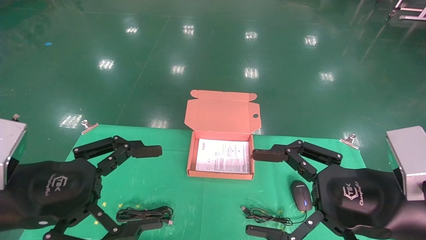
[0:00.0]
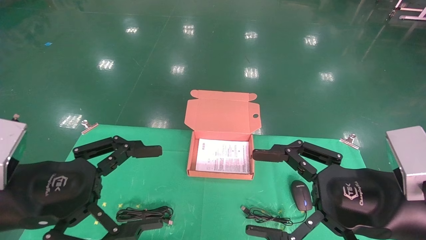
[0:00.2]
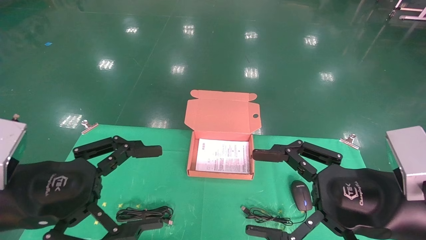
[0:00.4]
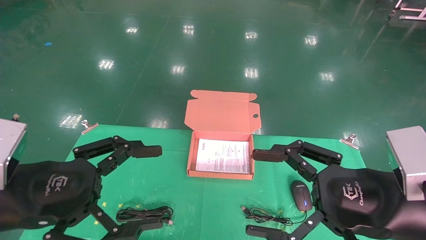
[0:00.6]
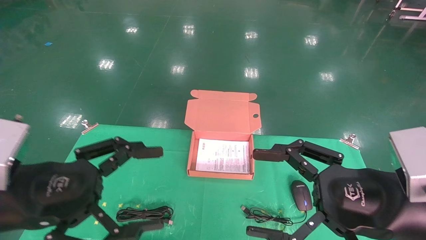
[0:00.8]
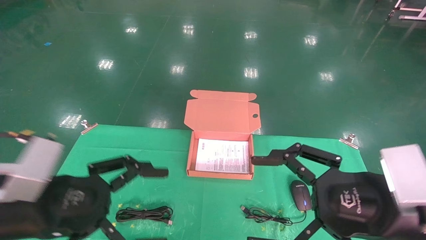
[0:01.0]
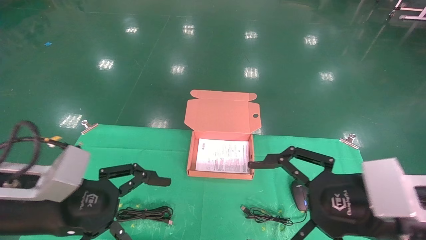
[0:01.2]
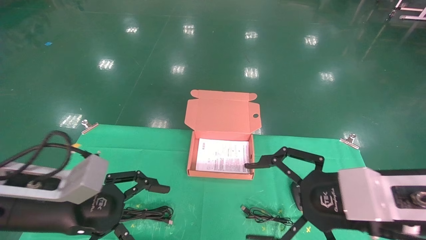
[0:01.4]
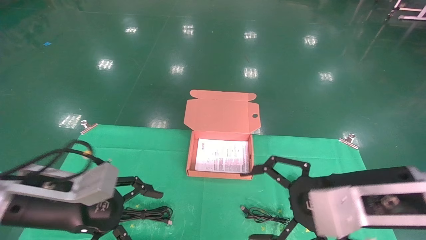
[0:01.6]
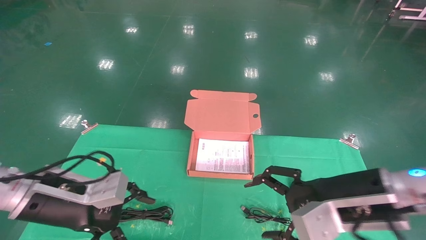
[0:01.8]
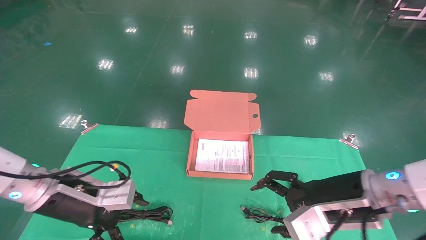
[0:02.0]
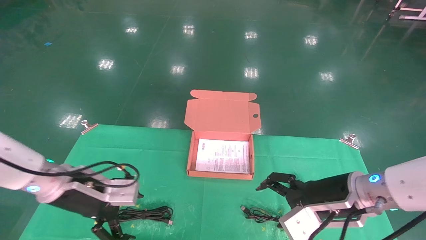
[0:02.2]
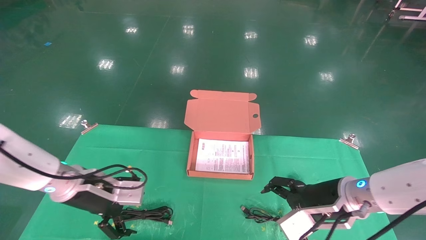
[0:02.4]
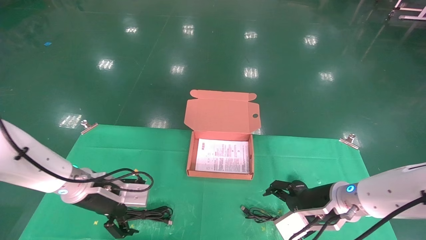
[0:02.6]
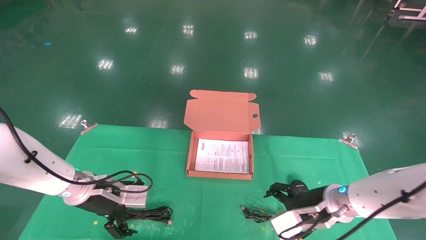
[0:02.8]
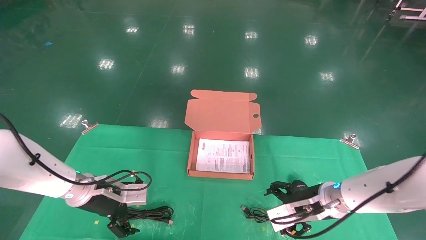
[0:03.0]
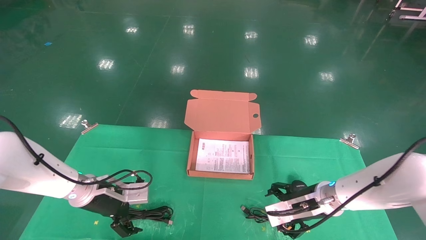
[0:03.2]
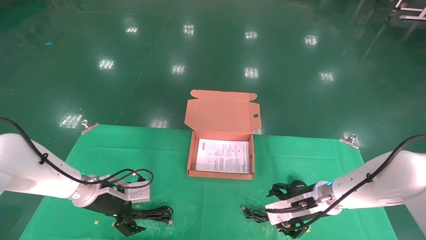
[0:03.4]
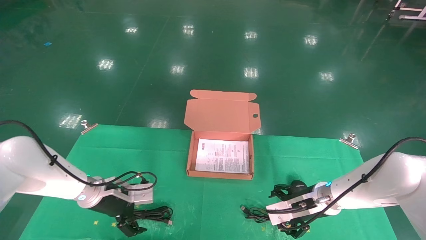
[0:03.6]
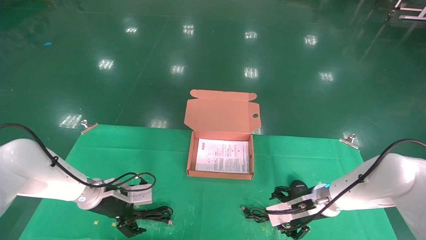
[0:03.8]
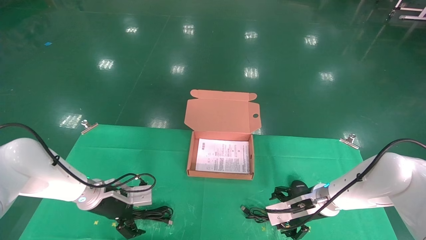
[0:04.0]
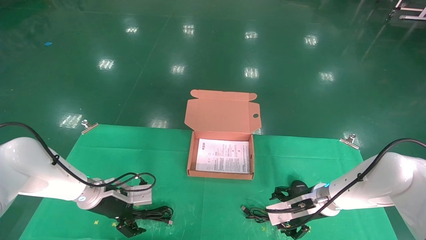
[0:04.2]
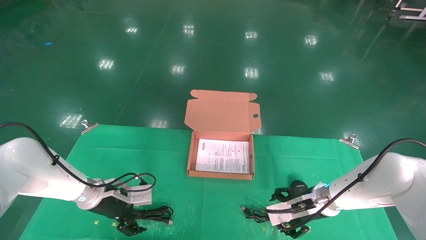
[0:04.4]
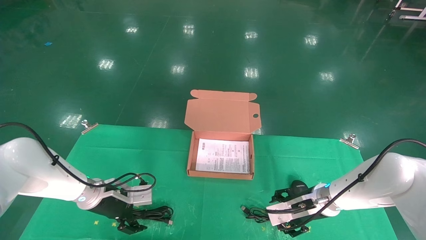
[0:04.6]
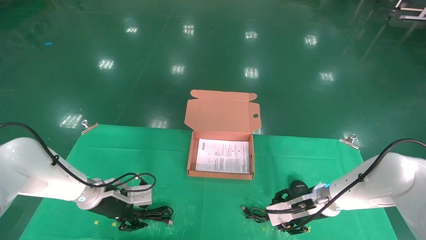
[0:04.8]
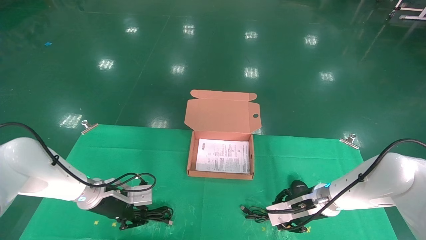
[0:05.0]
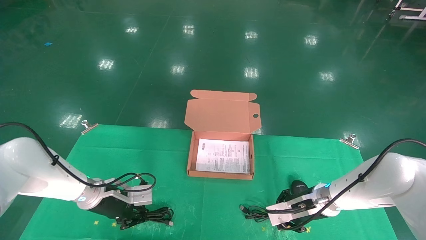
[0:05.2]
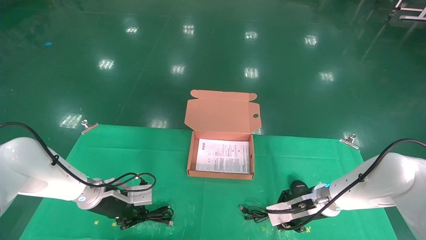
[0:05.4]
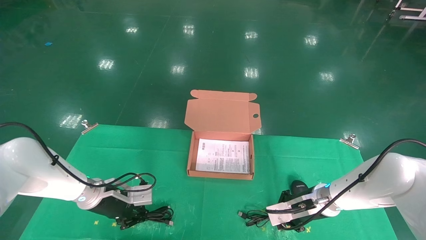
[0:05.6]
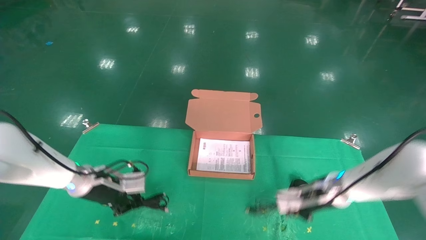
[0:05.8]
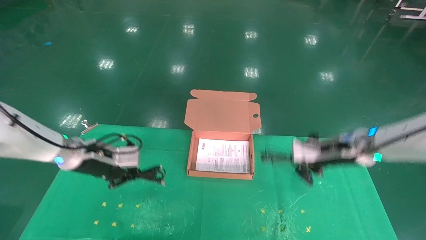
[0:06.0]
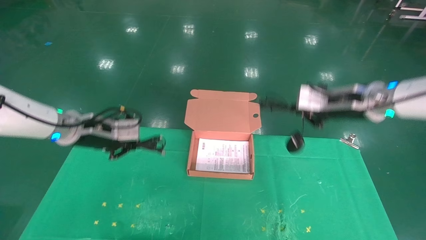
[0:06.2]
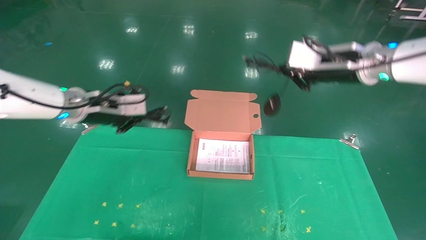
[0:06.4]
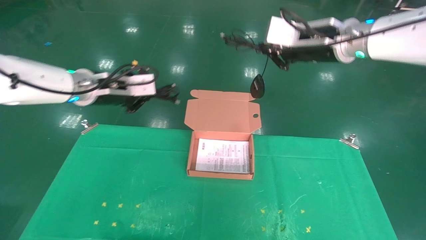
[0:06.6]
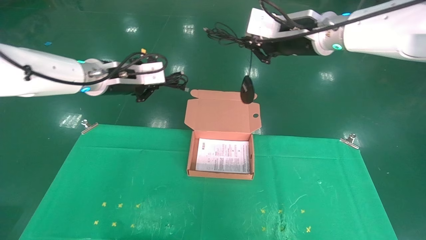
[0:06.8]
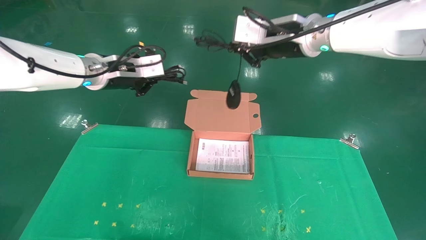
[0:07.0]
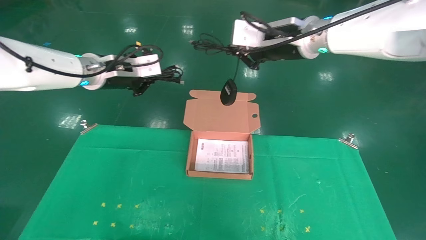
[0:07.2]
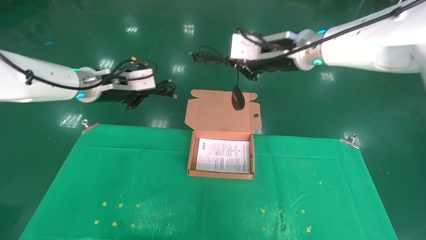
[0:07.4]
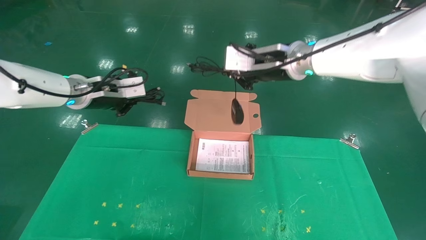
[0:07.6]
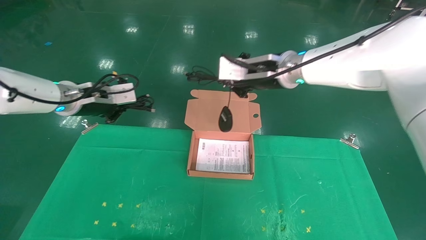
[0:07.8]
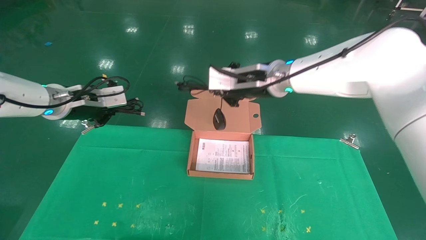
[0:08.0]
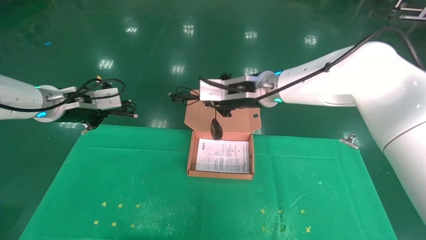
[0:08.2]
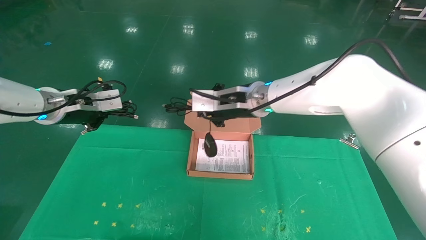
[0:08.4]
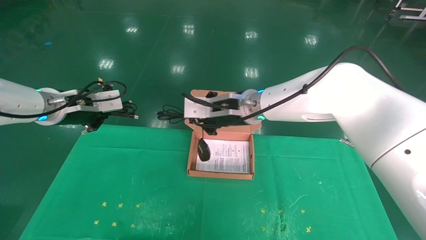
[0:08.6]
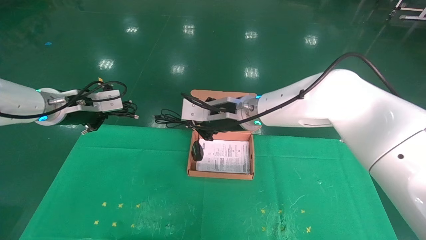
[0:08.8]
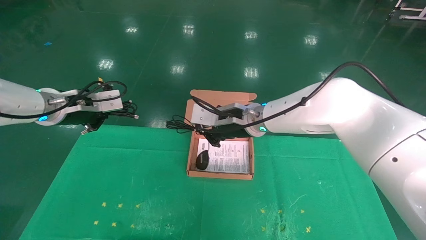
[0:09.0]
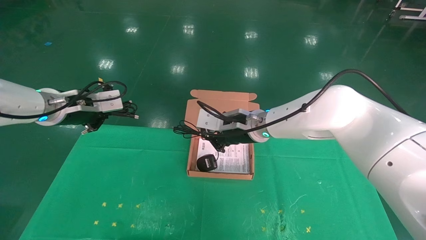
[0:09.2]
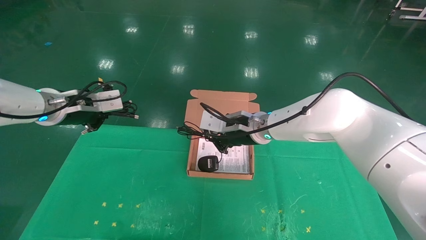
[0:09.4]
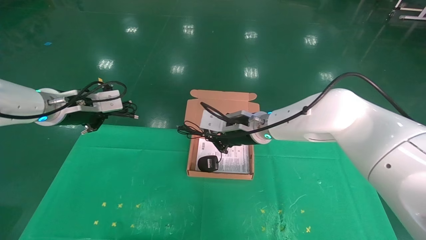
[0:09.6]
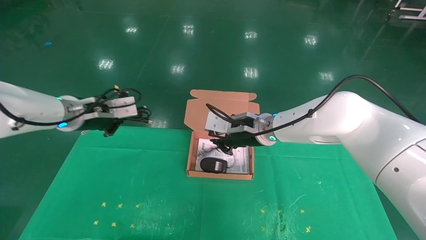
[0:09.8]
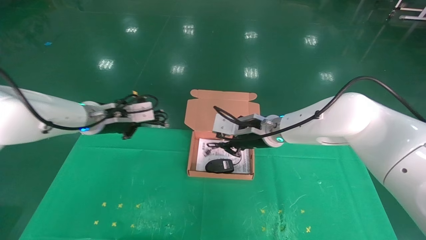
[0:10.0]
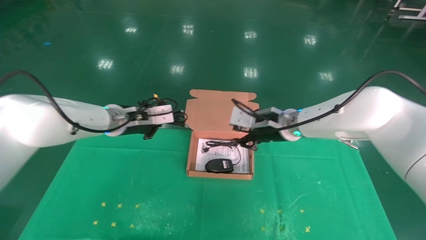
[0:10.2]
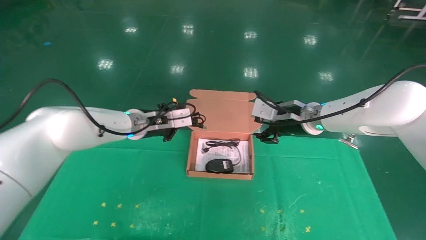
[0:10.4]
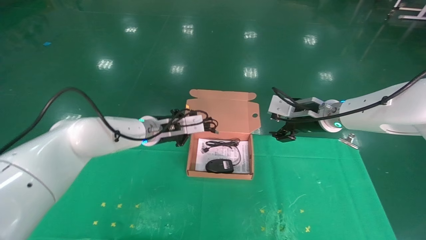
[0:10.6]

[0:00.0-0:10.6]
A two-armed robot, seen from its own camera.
Task of the whole recording: grasp data cable left put into box grasp mouse right put into box.
Step, 0:01.0 to 0:05.6: Grab and pick up both the mouse and power cord from the accessory packaging area at the same time.
0:00.0 to 0:01.6: The left gripper heads forward, covering roughly 5 cm. Meanwhile the right gripper moves roughly 5 cm.
0:01.6 to 0:03.0: The two grippers go some 15 cm forward and downward.
0:03.0 to 0:04.6: The right gripper moves approximately 5 cm.
0:04.6 to 0:06.0: The grippers both shift upward by roughly 15 cm. The left gripper closes up, while the right gripper closes up.
0:06.0 to 0:07.6: The left gripper goes some 15 cm upward. Meanwhile the right gripper heads upward and to the left, covering about 20 cm.
0:07.6 to 0:09.0: The left gripper moves some 5 cm. Meanwhile the right gripper travels downward and to the left by about 15 cm.
0:09.0 to 0:10.6: The left gripper goes approximately 20 cm to the right, downward and forward. Meanwhile the right gripper is displaced to the right by about 15 cm, and opens its fingers.

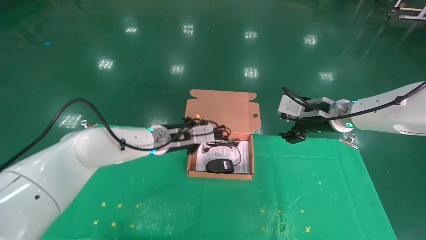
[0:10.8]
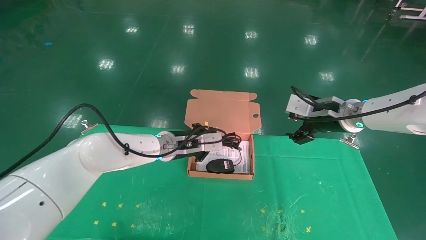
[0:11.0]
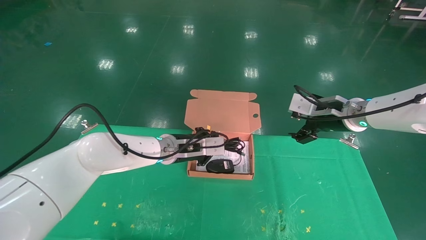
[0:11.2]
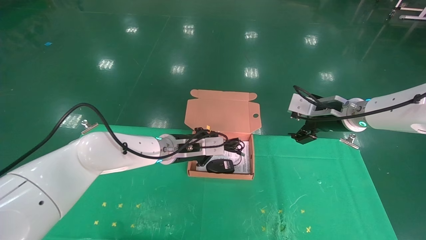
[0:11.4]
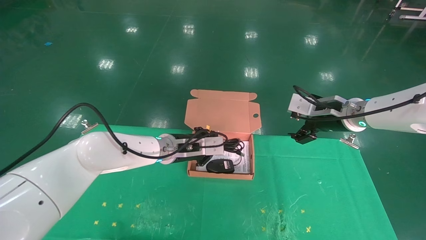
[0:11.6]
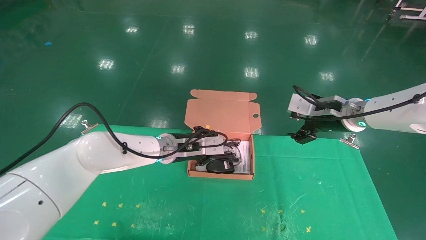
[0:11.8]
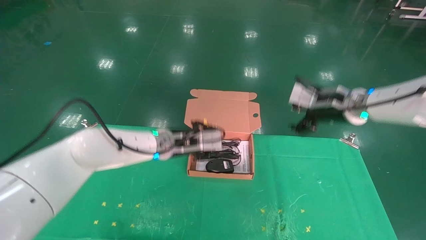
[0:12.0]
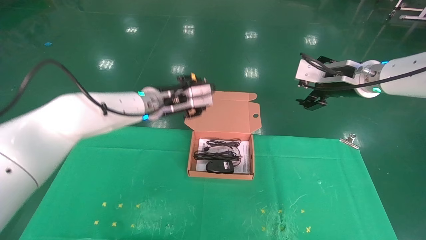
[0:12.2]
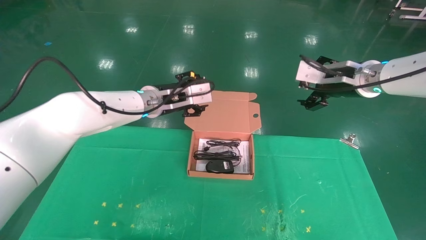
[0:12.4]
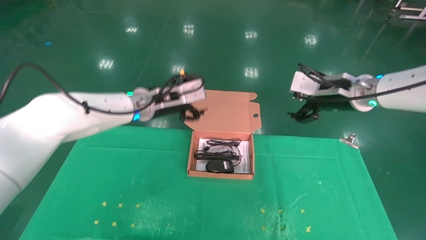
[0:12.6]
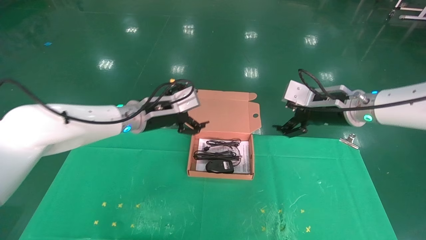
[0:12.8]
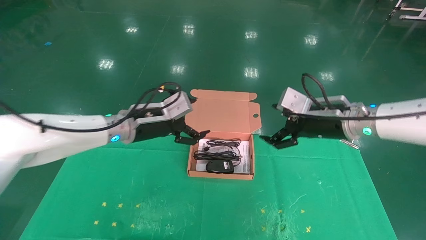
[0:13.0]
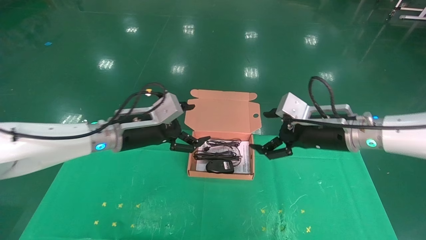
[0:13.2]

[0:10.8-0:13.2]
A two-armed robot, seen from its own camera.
Task of the whole recording: grasp data cable left put into box grasp mouse right put into box.
0:10.8 to 0:12.0: The right gripper shifts by approximately 5 cm.
0:12.0 to 0:13.2: The left gripper heads to the left and backward, covering approximately 10 cm, and opens its fingers. Meanwhile the right gripper goes about 10 cm backward and downward.

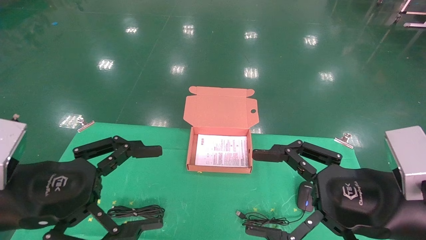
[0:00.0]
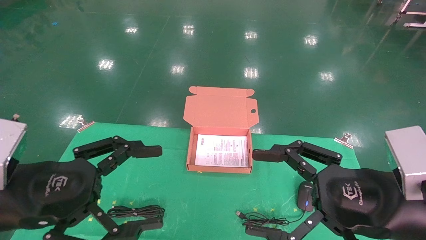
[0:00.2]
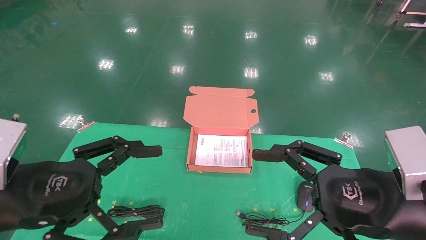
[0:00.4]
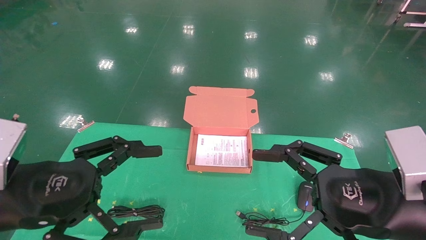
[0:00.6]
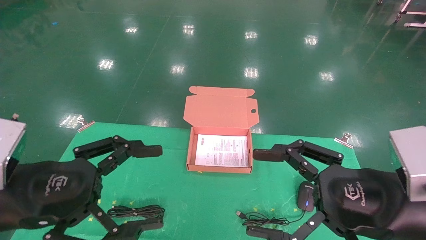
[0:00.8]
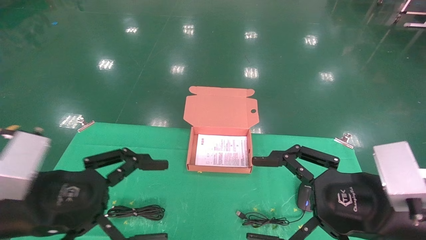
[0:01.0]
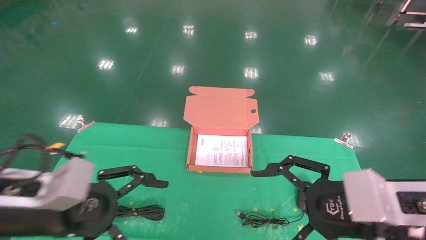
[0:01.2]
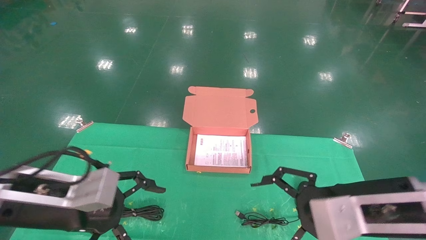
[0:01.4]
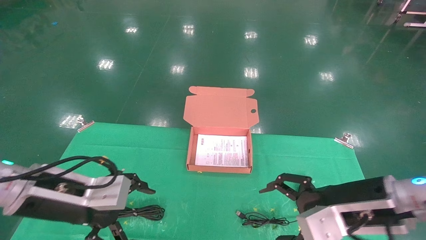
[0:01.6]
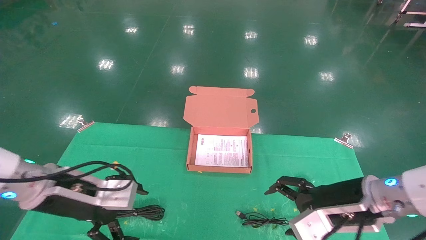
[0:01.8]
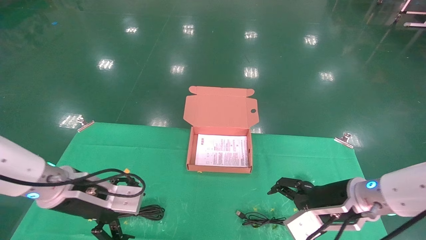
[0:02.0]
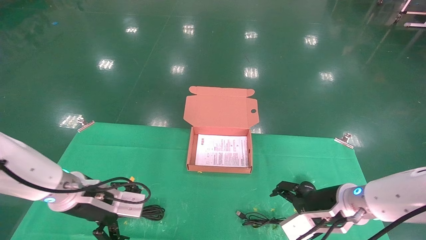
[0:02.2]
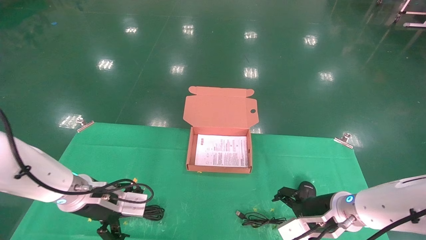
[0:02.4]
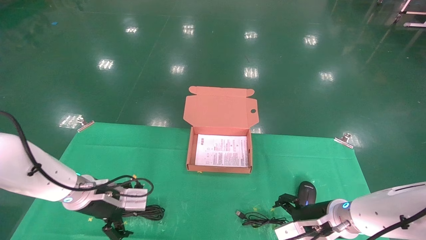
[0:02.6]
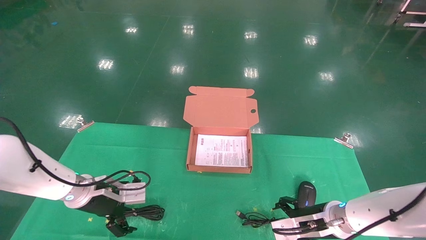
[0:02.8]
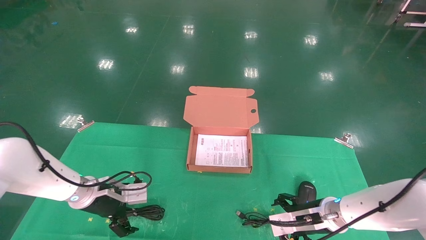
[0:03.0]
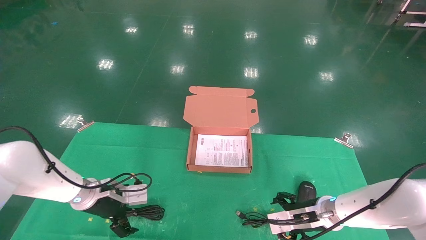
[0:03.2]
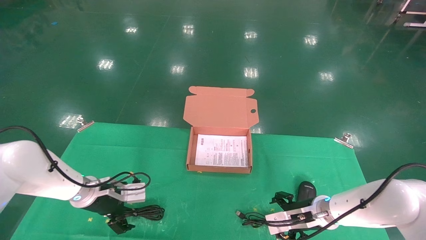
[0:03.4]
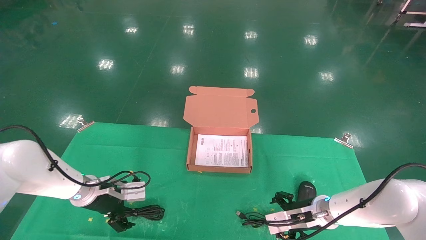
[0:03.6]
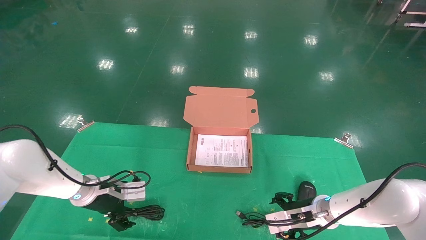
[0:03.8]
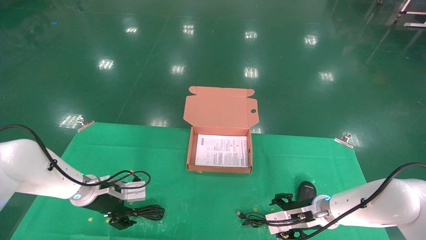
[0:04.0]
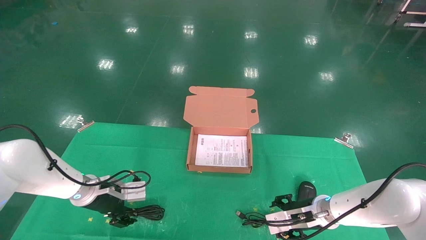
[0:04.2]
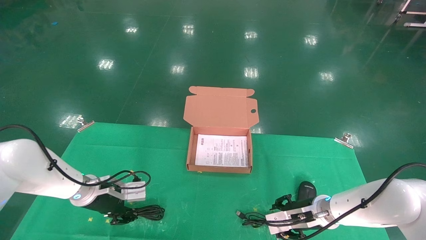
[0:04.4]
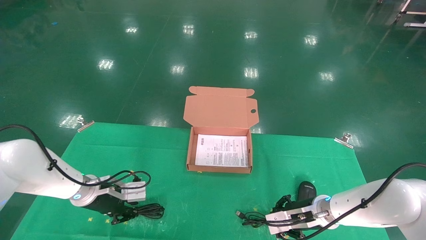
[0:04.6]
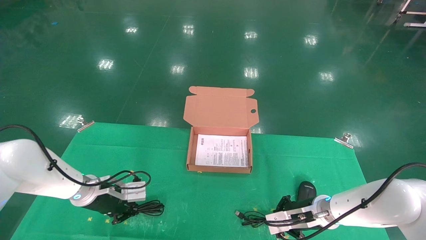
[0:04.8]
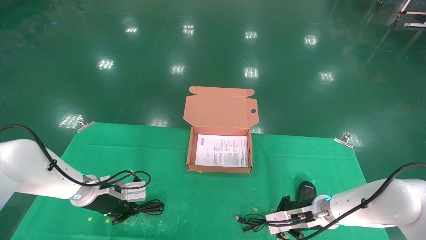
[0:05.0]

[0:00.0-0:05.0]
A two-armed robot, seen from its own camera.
Task of the whole recording: grasp data cable left put into box grasp mouse right put into box.
0:00.0 to 0:01.6: The left gripper is displaced forward by approximately 10 cm, while the right gripper heads forward and downward, covering roughly 10 cm.
0:01.6 to 0:03.4: The right gripper shifts some 20 cm downward and forward, while the left gripper moves forward and downward, about 20 cm.
0:03.4 to 0:05.0: The right gripper closes its fingers. The left gripper closes up.
